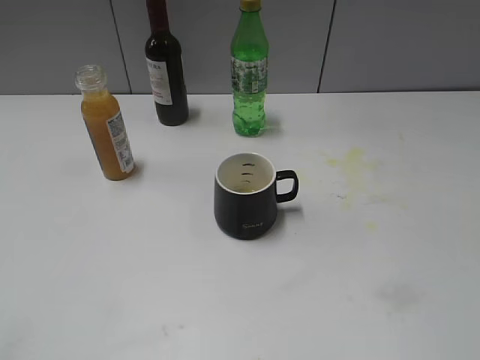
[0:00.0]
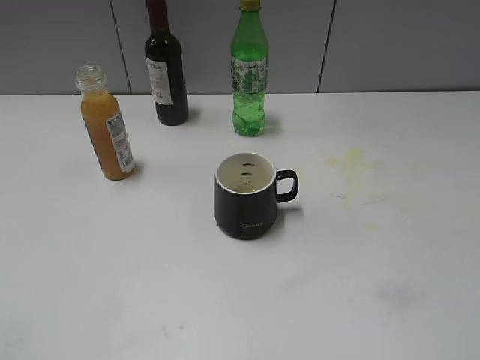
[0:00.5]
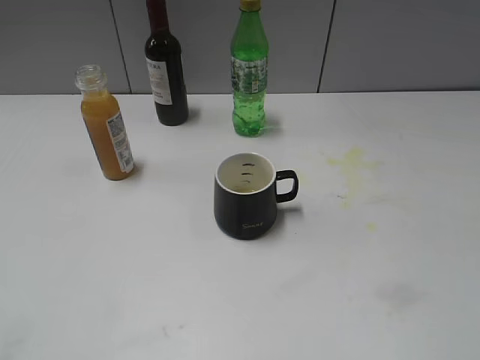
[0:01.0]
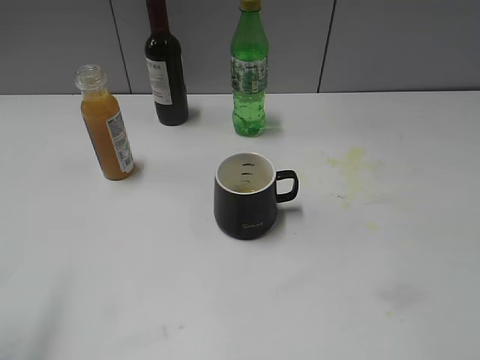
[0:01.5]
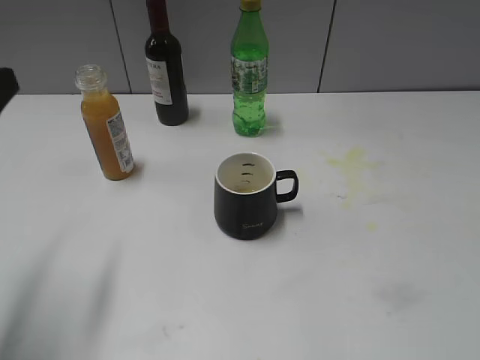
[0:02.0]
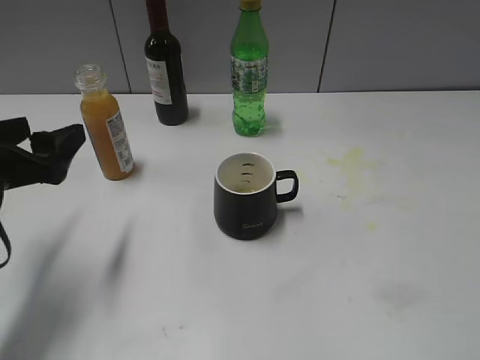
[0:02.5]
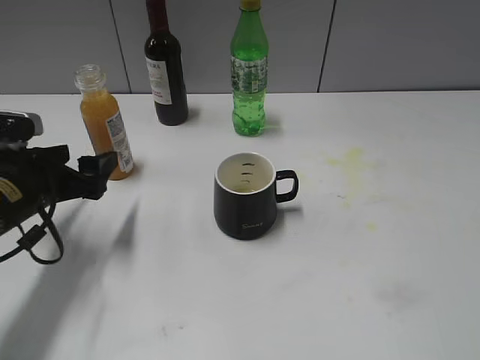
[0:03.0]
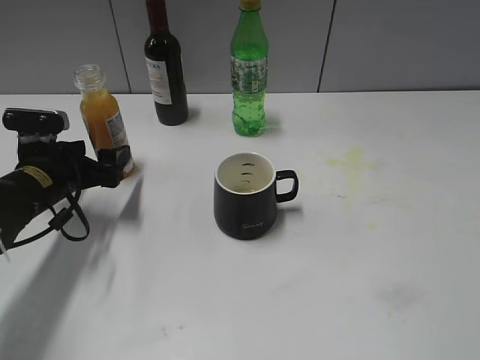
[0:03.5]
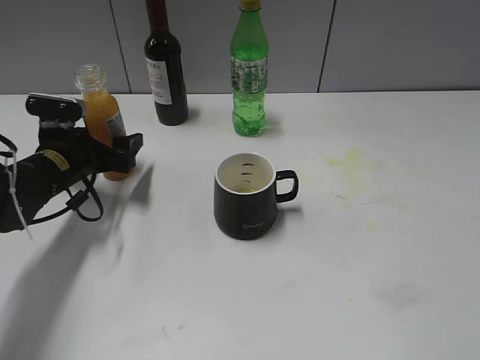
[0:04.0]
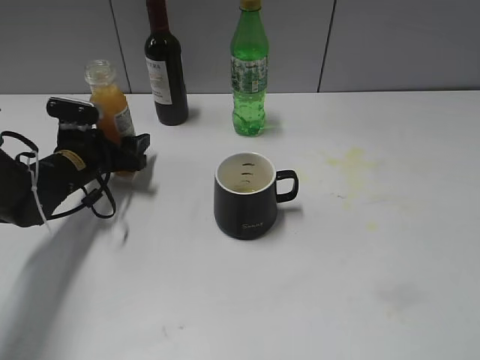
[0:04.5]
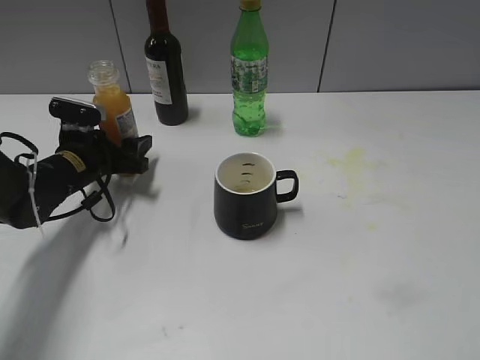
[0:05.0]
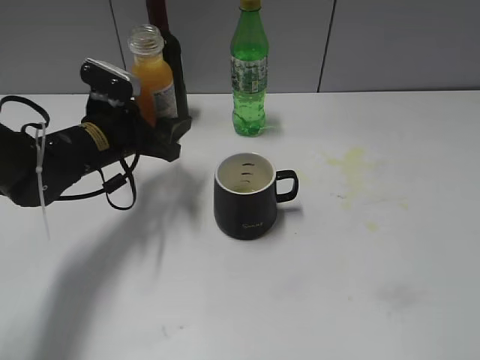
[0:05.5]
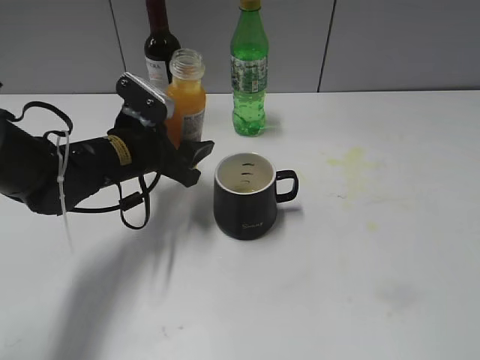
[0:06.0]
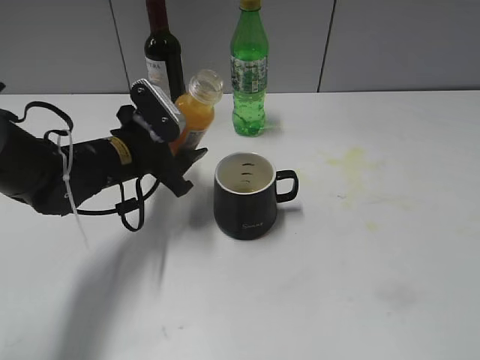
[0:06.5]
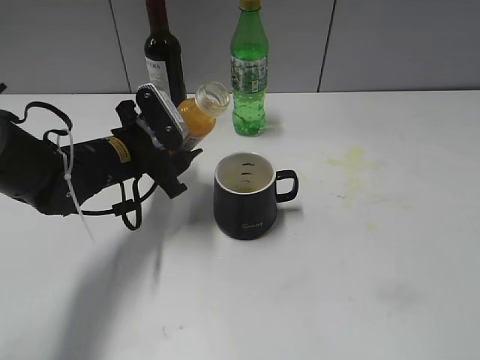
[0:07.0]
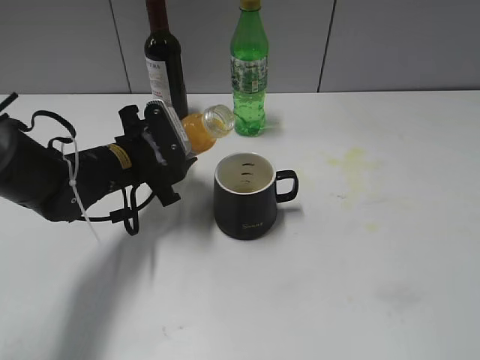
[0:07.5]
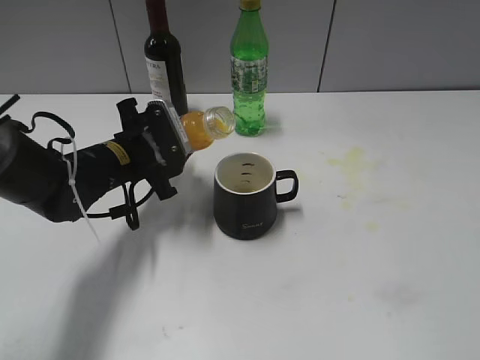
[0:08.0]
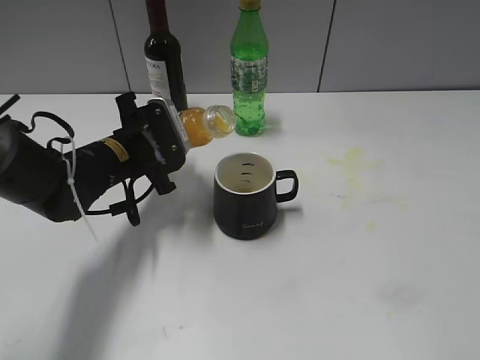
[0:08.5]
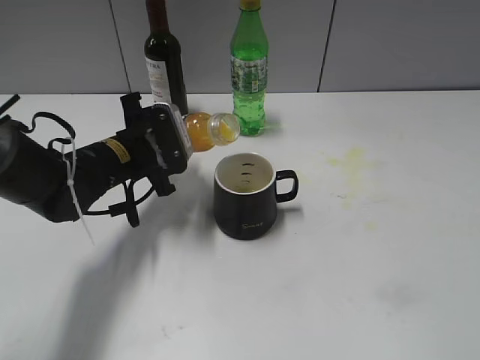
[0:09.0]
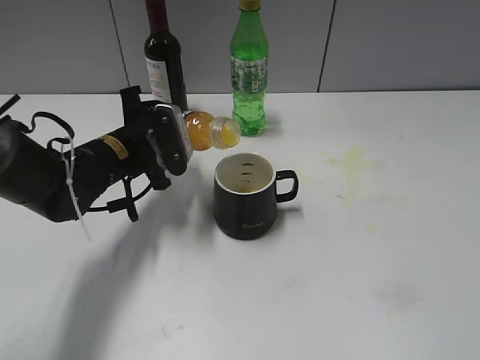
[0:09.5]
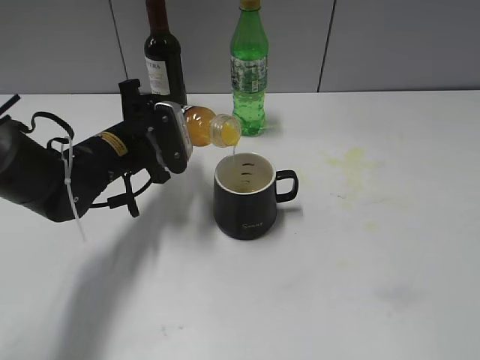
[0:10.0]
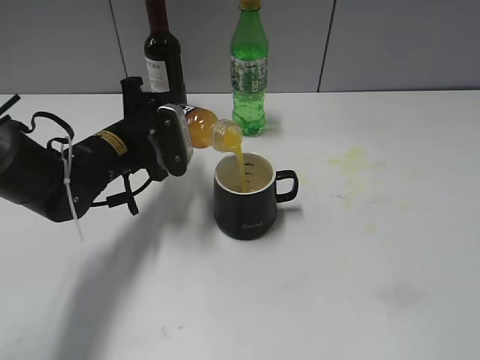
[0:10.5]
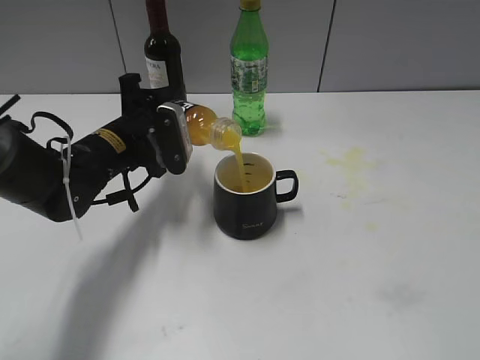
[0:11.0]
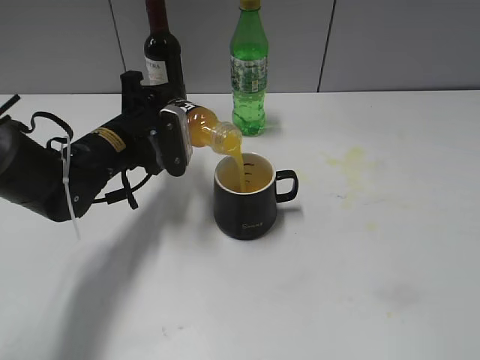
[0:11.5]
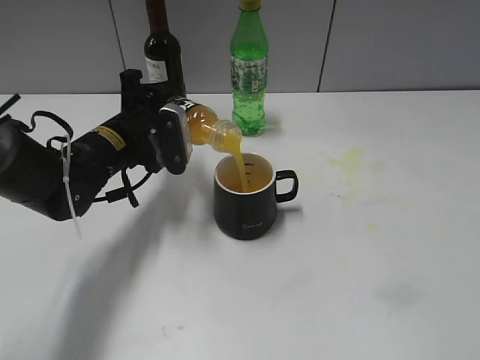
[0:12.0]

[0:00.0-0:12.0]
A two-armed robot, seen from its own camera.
Step, 0:00.0 to 0:04.5: Grasp the bottle with orange juice with left gripper.
0:00.0 to 0:02.0: The left gripper is displaced forward by approximately 20 cm, and opens up.
0:02.0 to 0:04.0: The left gripper goes some 25 cm forward and downward.
0:04.0 to 0:06.0: The left gripper goes roughly 10 cm to the right, and closes its fingers.
0:08.0 to 0:10.0: The grippers move only a little.
0:10.0 to 0:12.0: The grippers stay close to where they were, moving slightly.

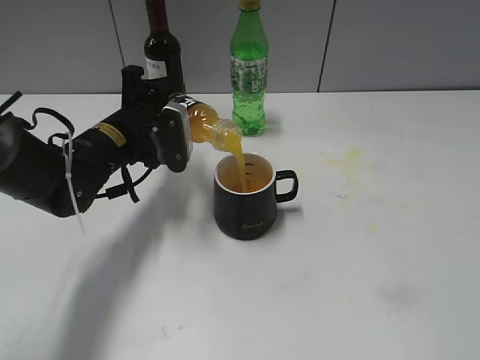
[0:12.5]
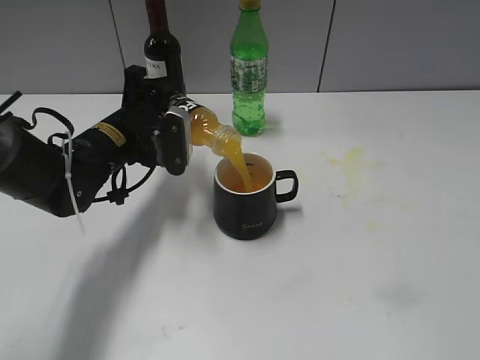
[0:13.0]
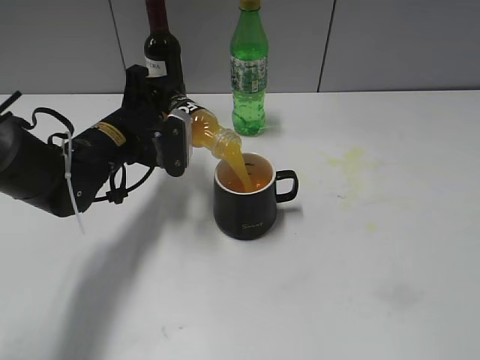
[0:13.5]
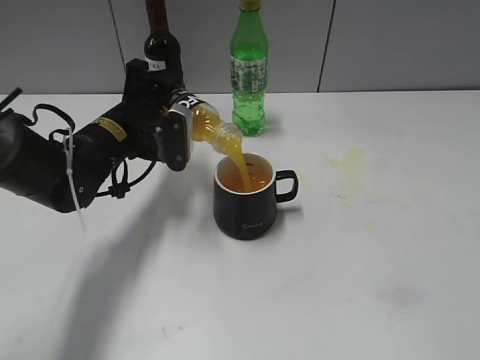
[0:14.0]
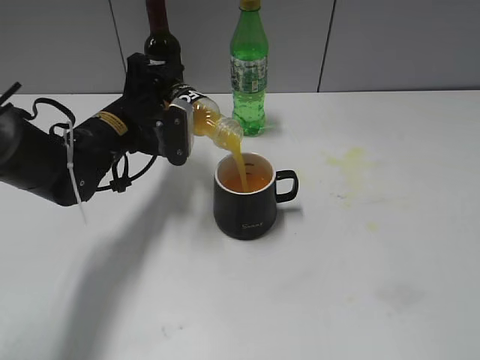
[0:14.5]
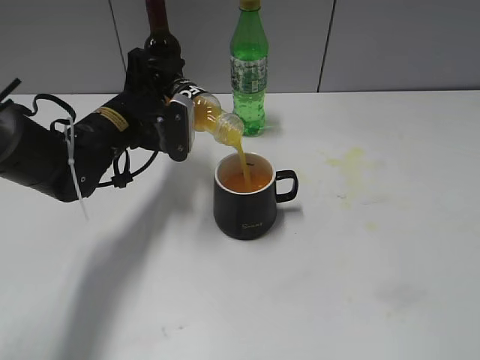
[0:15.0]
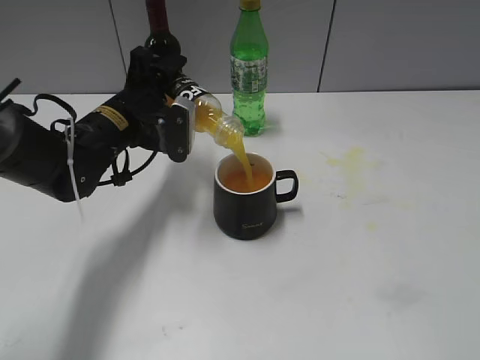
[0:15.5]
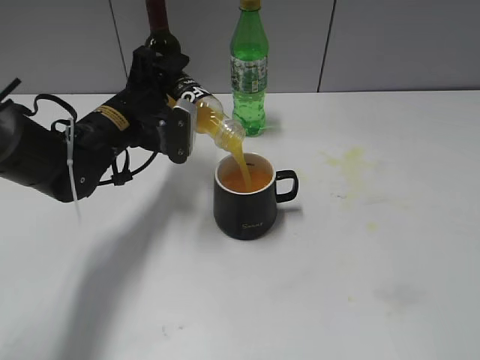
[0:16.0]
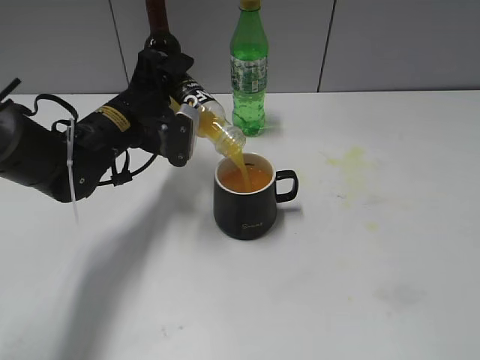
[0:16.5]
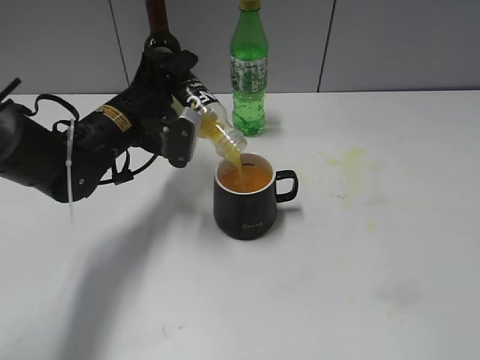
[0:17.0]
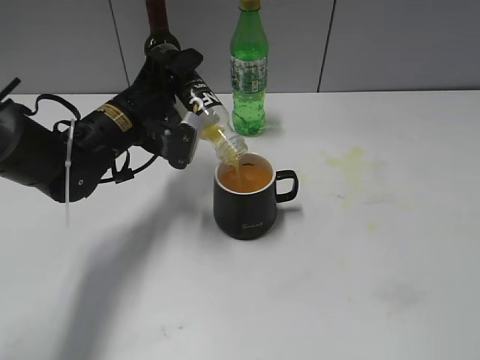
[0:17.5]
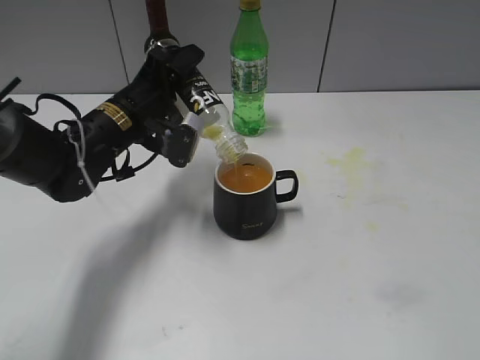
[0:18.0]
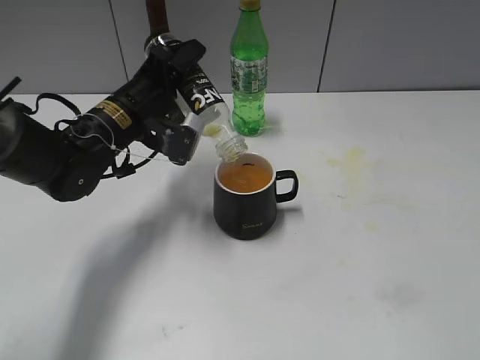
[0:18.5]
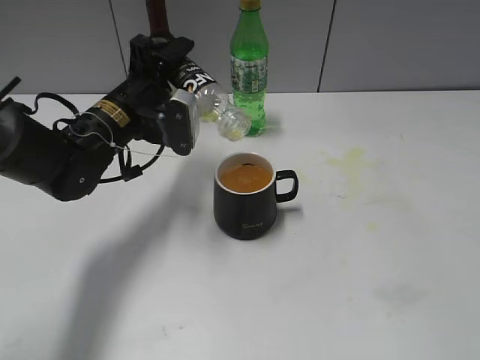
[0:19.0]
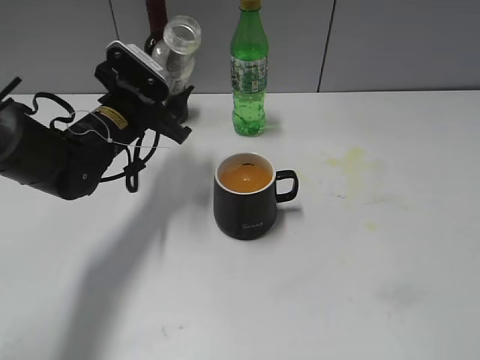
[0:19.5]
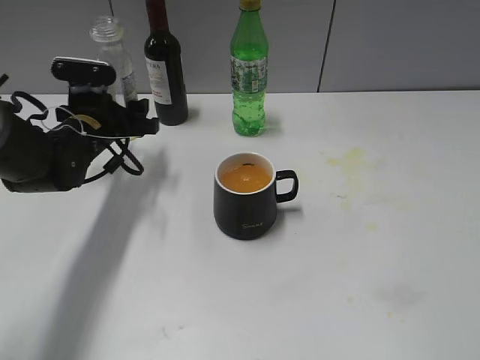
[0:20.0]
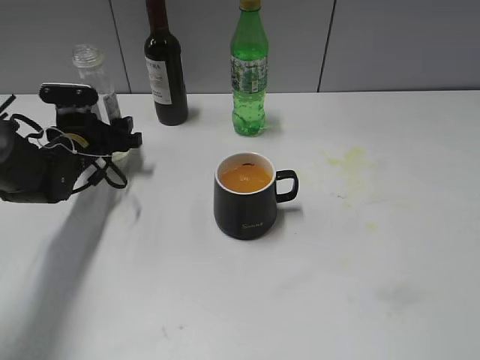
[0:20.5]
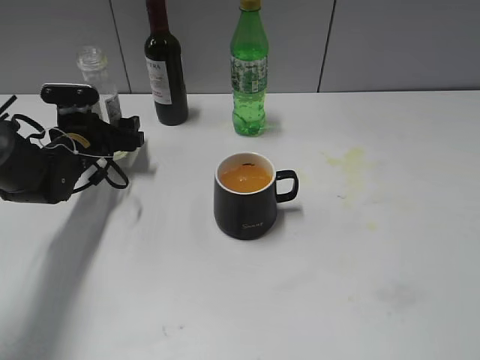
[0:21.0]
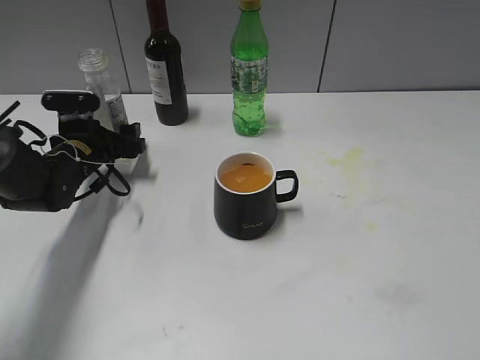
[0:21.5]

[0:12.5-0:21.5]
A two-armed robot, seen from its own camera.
Step, 0:12.5 to 0:19.0: Pour the orange juice from bottle to cup with left gripper.
Step, 0:19.5 to 0:21.5: Place the orange juice bottle on the table with left gripper.
0:12.5 to 0:14.5: There are only small adjustments of the grippers.
0:14.5 to 0:17.0: The grippers make only small movements.
0:19.5 to 0:21.5: The left gripper travels downward and to the left by some 10 cm.

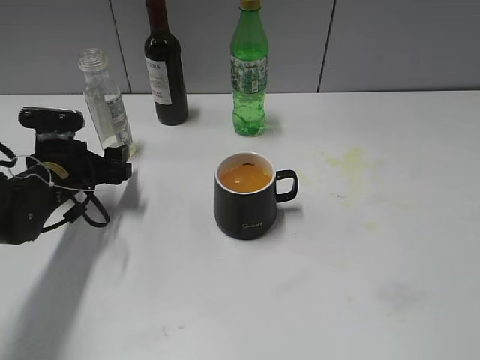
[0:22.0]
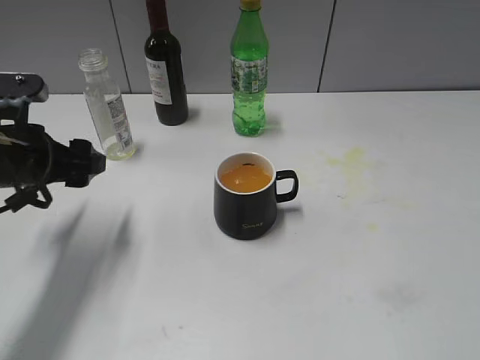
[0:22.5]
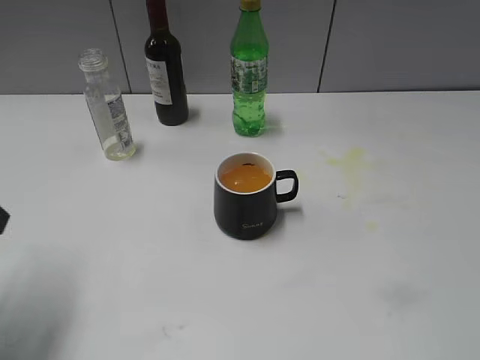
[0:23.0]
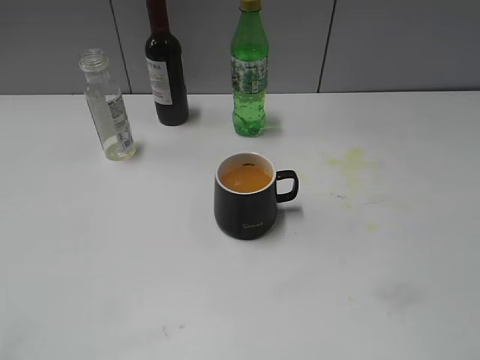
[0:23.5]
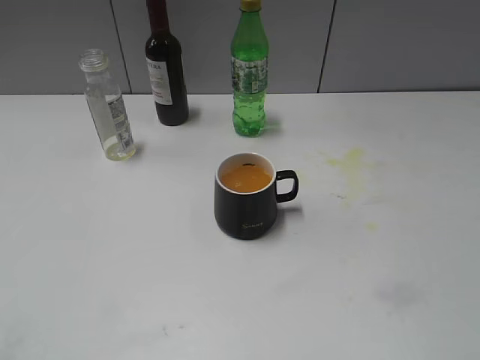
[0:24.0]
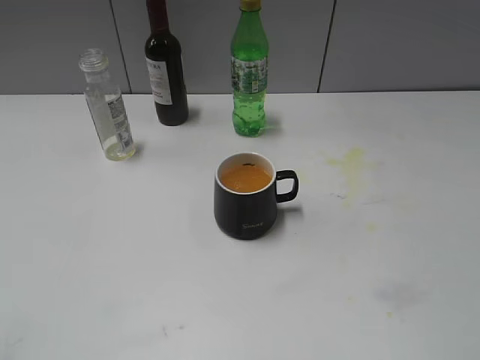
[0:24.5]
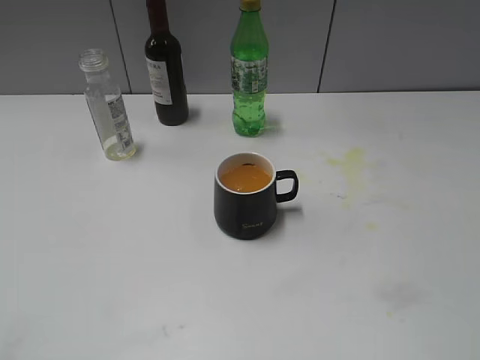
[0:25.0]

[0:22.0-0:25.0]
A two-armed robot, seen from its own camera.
0:22.0 to 0:23.5: The left gripper travels backward and upward by roughly 35 cm.
